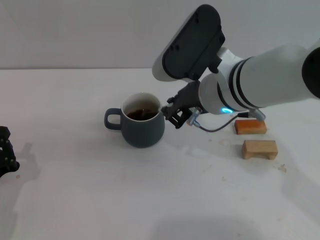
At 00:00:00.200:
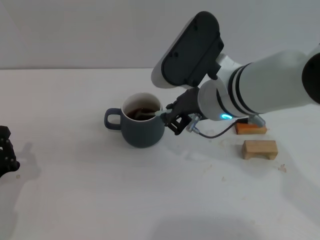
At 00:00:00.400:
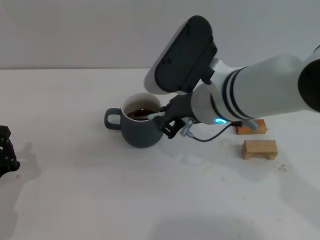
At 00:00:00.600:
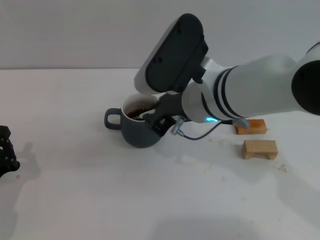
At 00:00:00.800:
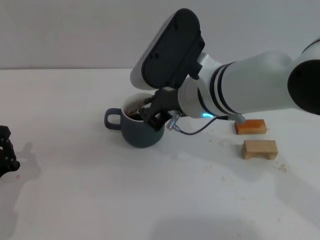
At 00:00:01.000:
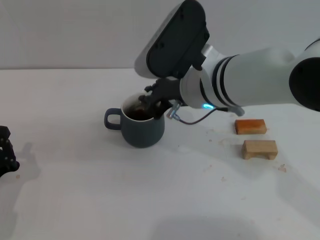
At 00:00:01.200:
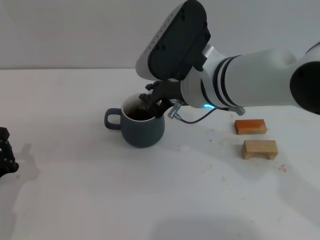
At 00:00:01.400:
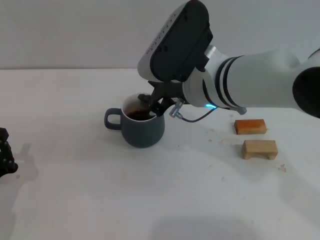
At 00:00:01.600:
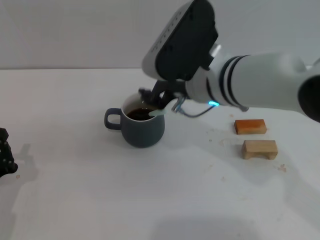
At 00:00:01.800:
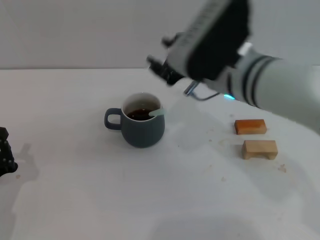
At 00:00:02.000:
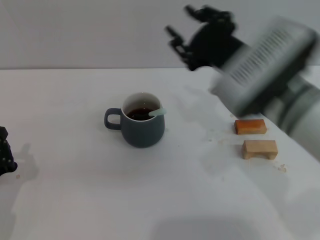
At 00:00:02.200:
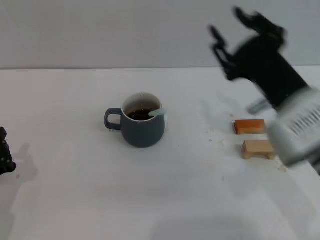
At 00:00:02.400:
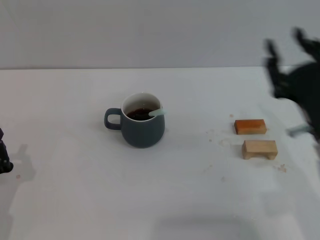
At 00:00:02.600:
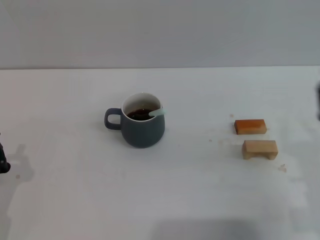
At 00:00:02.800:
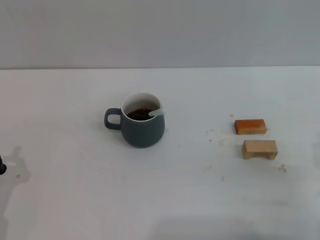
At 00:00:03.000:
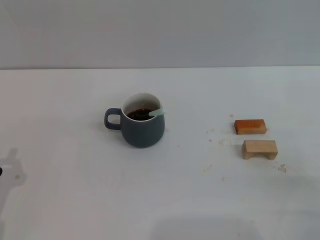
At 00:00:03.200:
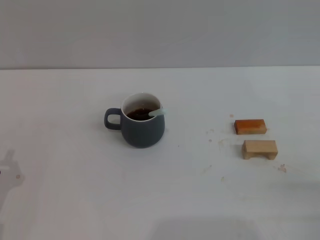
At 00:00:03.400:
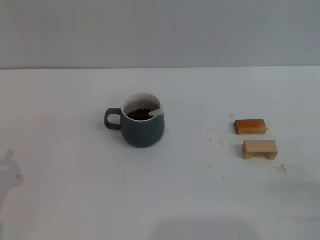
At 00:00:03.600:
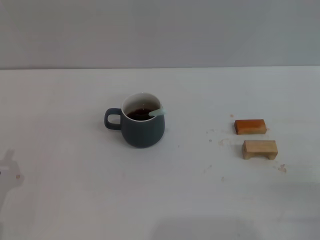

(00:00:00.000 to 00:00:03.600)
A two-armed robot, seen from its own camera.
Task of the whole recording: Move the grey cup to the center, lift the blue spoon, stir it three times in the cup, and put the spoon into the cup.
00:00:00.000 - 00:00:01.800: The right gripper opens.
00:00:01.800 - 00:00:03.600: The right gripper goes some 35 cm to the right, backward and downward, and opens its fingers.
